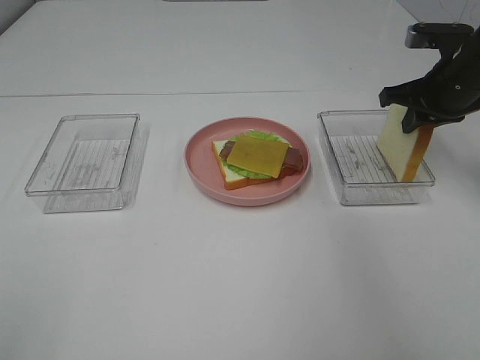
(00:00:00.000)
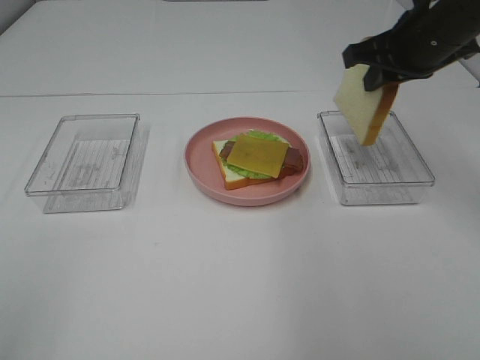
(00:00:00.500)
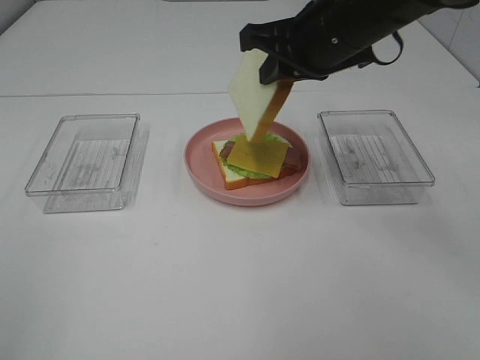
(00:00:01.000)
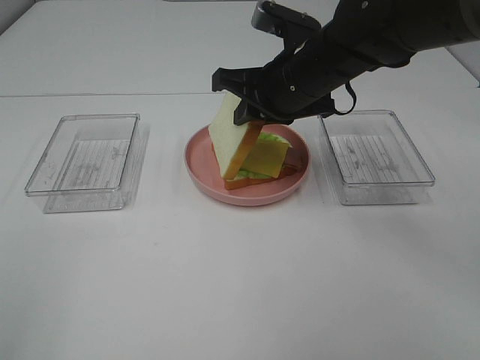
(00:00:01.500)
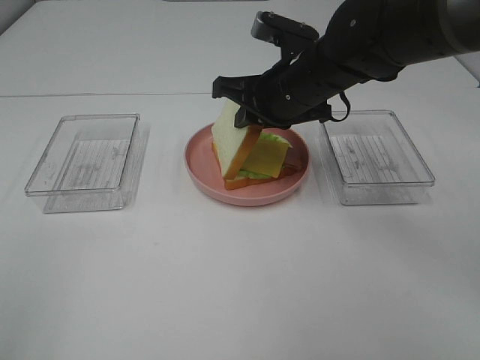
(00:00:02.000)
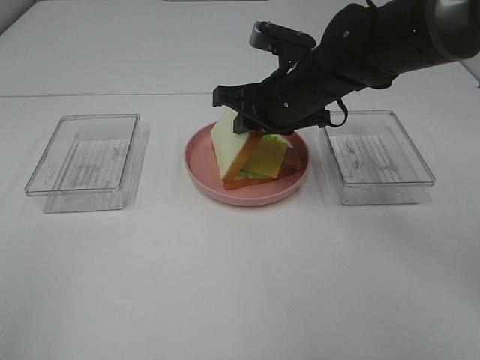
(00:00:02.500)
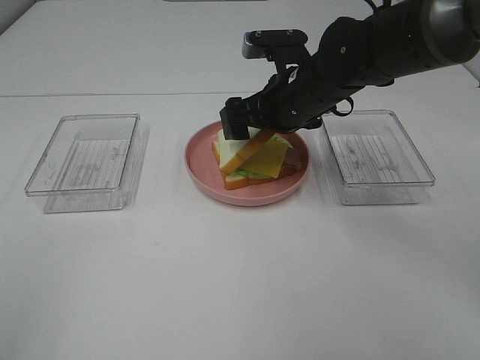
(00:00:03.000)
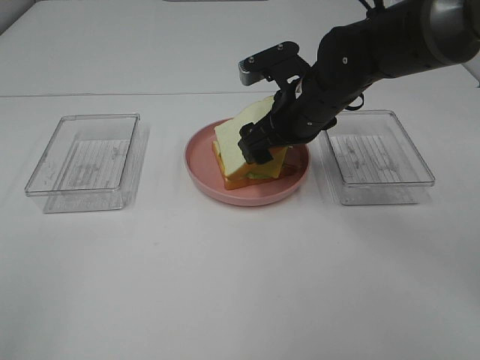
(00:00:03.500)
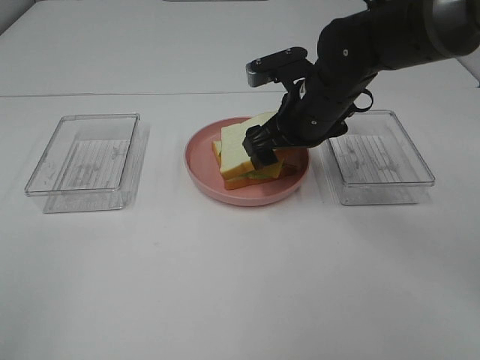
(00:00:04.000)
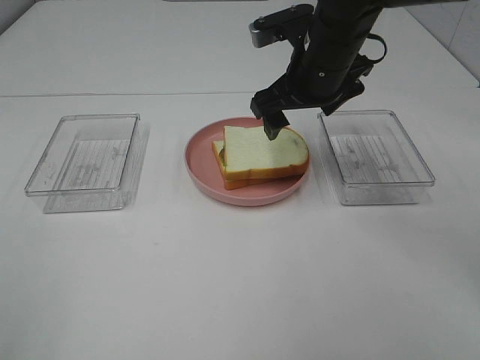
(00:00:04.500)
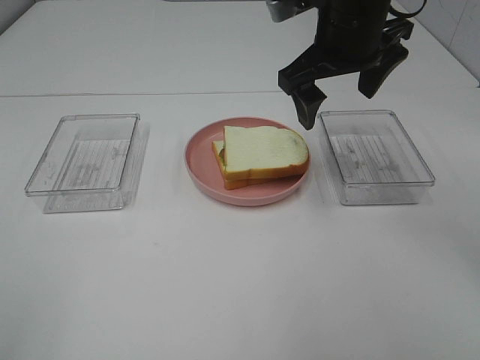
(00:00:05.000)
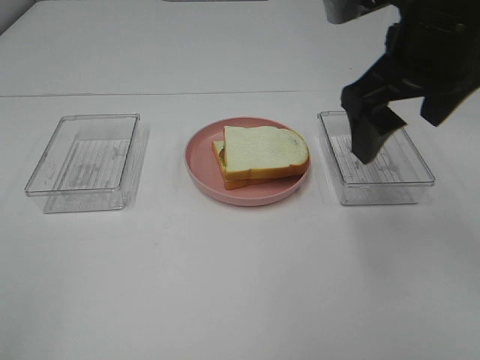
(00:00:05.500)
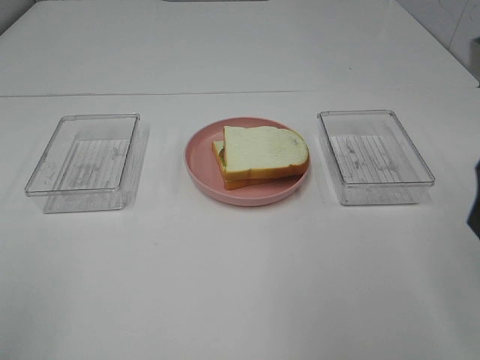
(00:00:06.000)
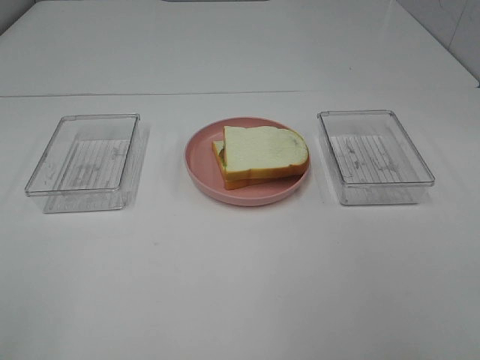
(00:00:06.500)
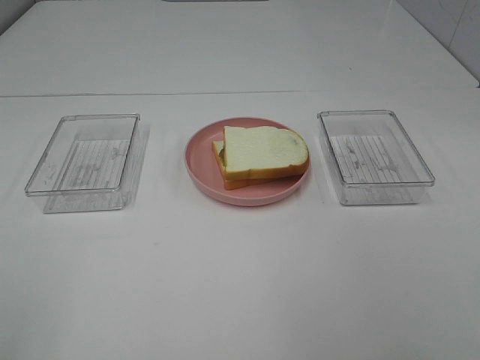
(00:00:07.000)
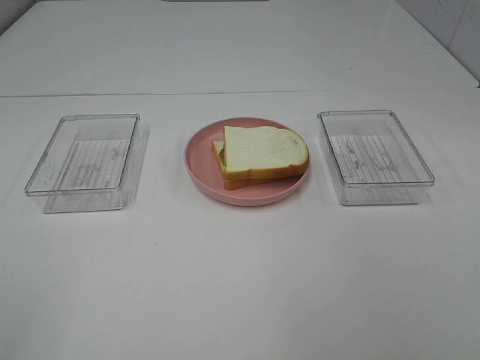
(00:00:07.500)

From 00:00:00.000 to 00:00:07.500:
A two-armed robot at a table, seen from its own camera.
Task of the whole recording: Make sandwiches.
Step, from 00:00:00.500 to 00:00:04.000: Right hand:place the bread slice on the cheese slice.
From 00:00:00.000 to 00:00:02.000: The right gripper is displaced to the left by some 20 cm.
From 00:00:02.000 to 00:00:04.000: The right gripper opens.
From 00:00:04.000 to 00:00:05.500: The right gripper goes about 20 cm upward, backward and to the right.
From 00:00:05.500 to 00:00:07.500: The right gripper travels backward and to the right by approximately 30 cm.
